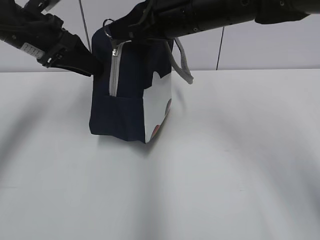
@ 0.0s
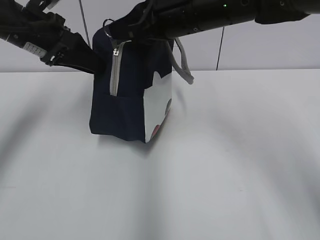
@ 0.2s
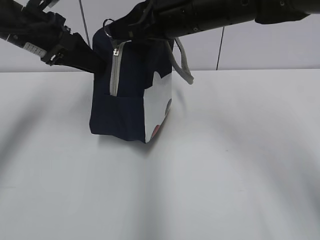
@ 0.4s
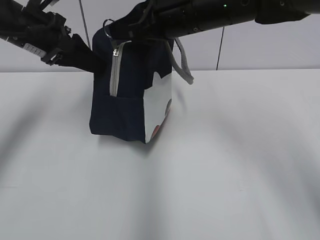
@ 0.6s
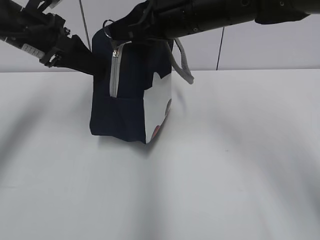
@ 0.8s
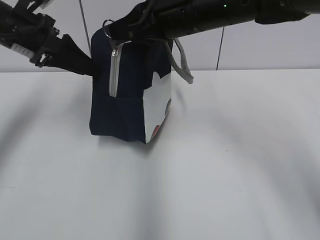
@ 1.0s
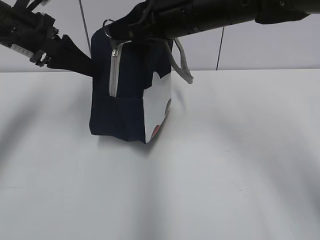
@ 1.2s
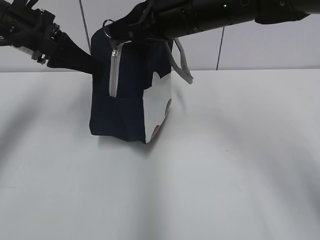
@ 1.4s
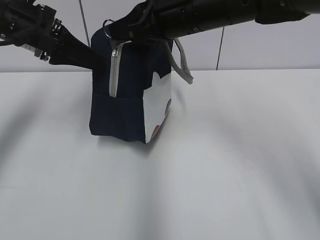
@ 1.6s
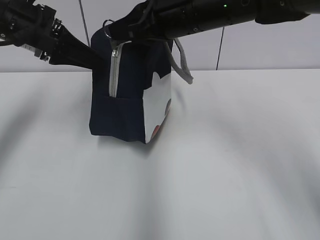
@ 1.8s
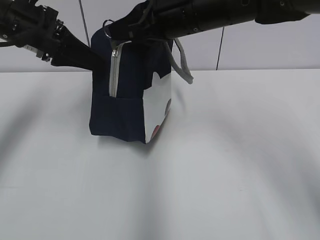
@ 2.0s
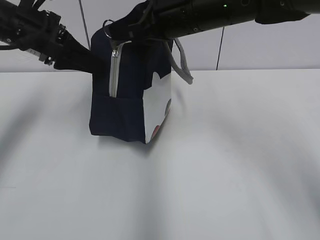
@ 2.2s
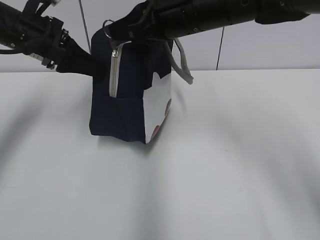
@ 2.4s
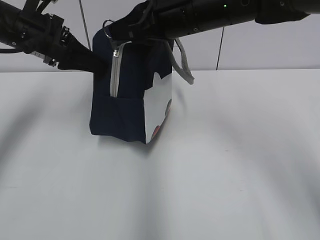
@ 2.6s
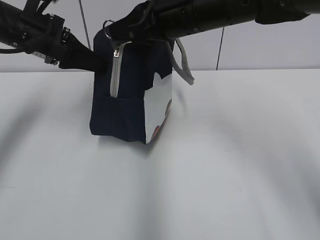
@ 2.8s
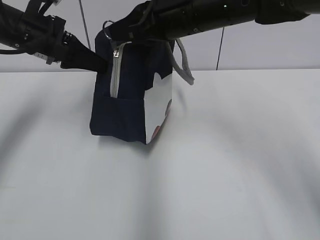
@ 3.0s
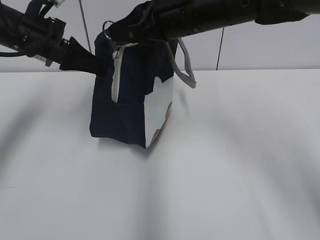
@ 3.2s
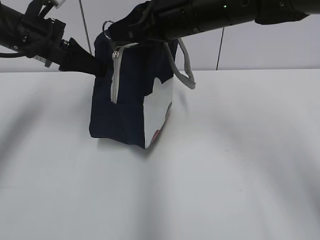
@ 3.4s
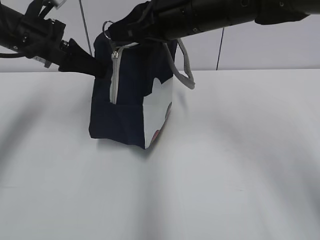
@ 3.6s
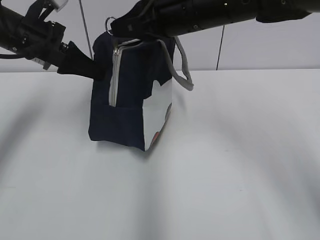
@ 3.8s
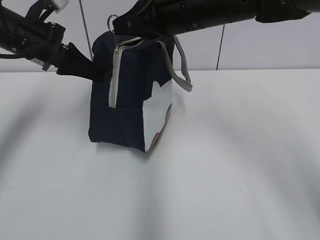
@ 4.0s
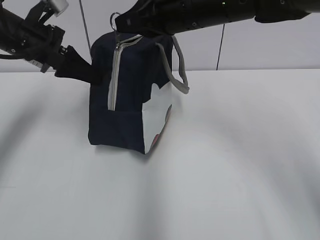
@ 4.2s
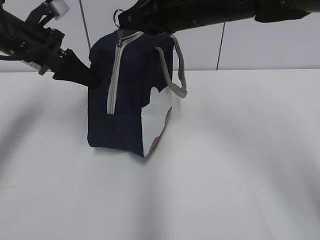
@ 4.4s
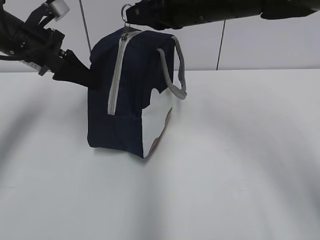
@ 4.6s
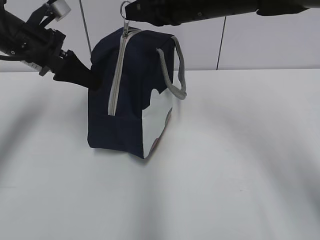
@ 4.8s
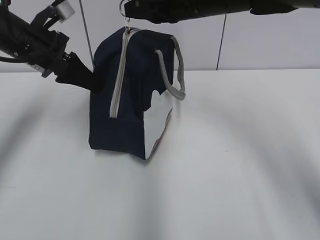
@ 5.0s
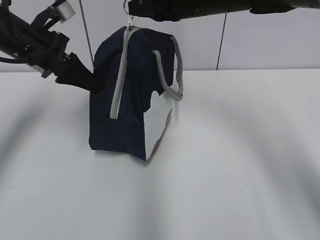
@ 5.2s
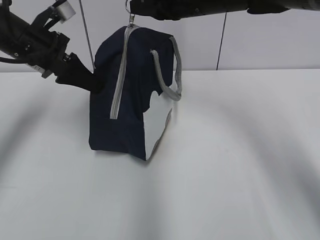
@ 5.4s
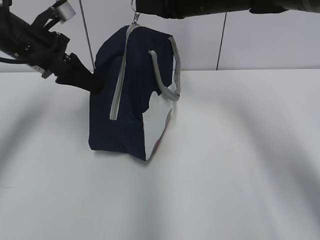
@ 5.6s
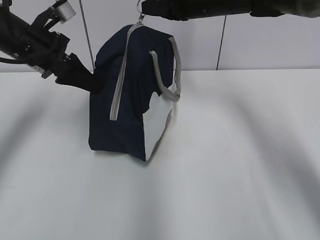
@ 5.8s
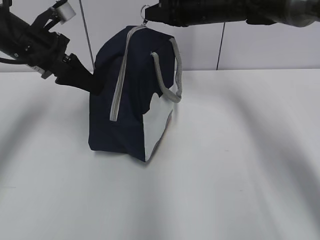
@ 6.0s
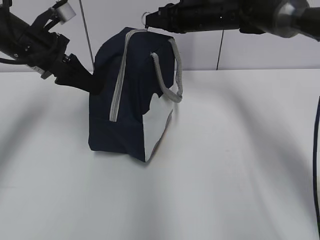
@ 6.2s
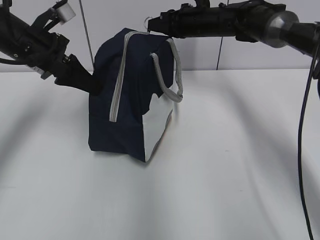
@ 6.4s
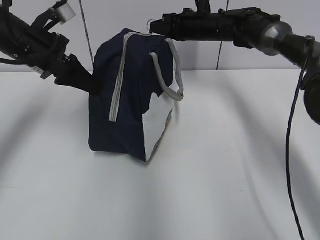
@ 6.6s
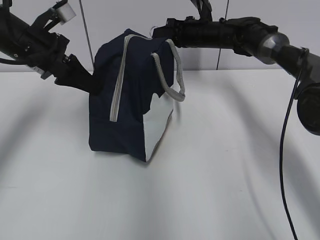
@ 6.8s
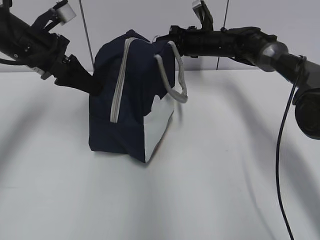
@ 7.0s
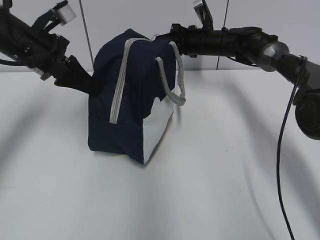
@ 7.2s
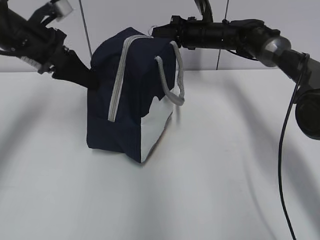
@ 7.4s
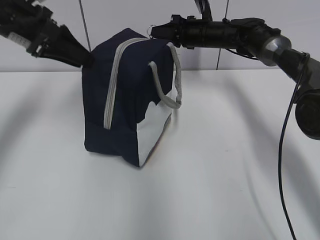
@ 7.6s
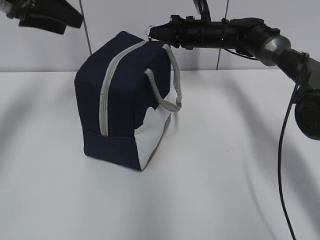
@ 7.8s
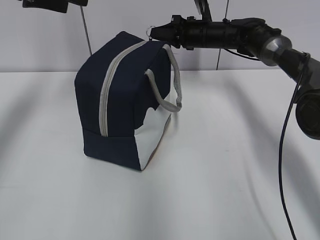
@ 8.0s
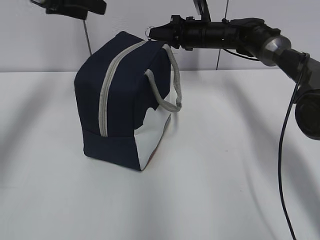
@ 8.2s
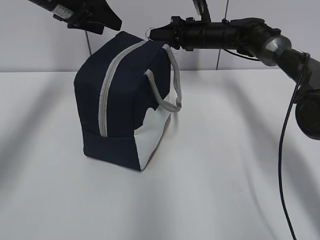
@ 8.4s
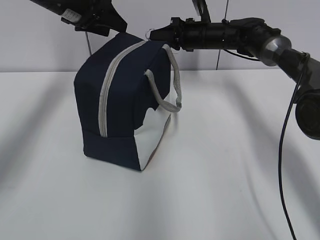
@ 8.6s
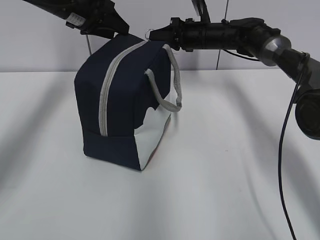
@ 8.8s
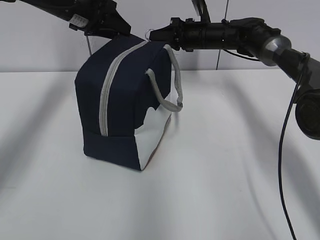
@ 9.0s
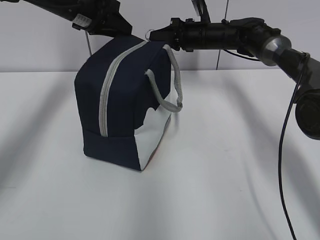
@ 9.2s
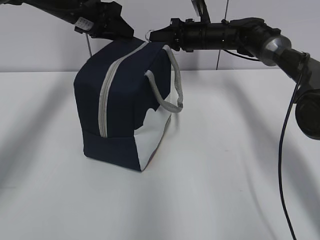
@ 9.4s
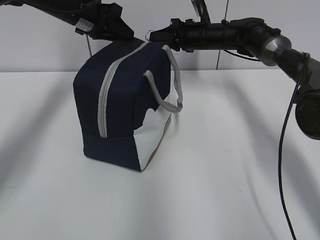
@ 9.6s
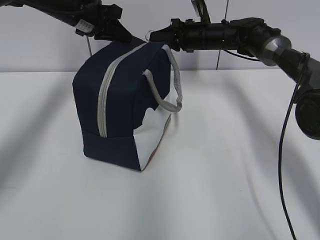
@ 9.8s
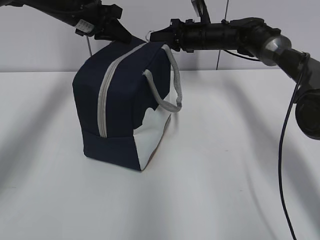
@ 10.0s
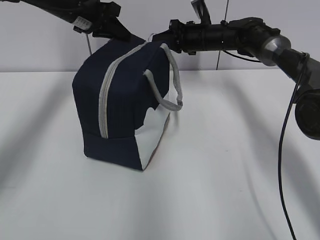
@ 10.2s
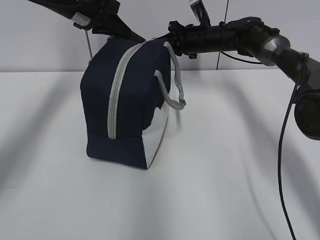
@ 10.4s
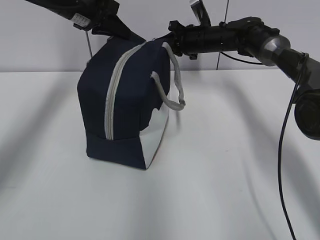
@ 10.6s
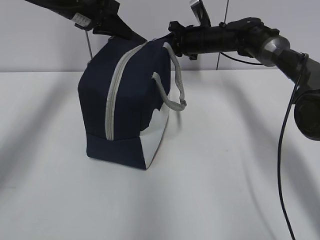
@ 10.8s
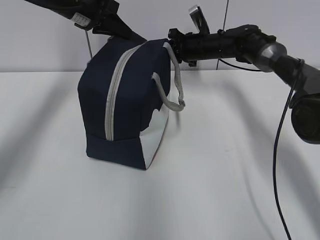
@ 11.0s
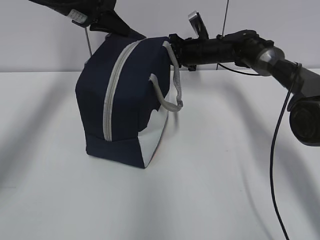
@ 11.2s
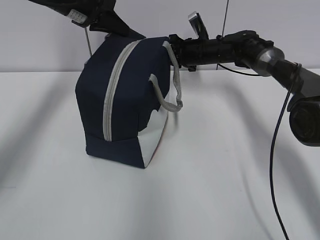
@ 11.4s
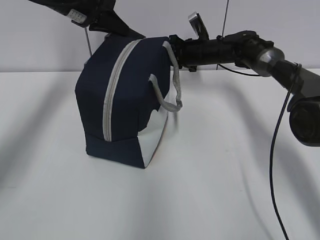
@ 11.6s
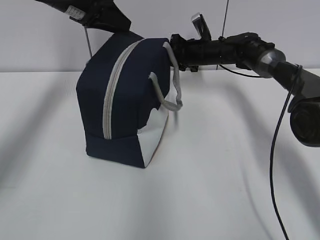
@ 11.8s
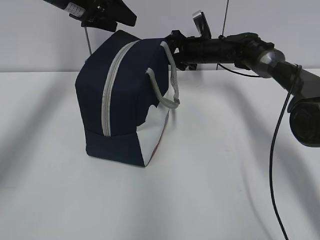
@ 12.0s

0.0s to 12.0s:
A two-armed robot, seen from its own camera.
Step, 0.0s to 7.4s: Grab the lunch bag with your left hand.
Step, 7.6s to 11.6s: Pull the zipper with your right hand.
0.0s to 1.6s: The left gripper opens.
1.6s to 3.0s: The left gripper closes up.
3.0s to 4.4s: The grippers make only small movements.
4.4s to 6.0s: The right gripper moves forward and to the right, roughly 15 cm.
6.0s to 7.6s: The right gripper shifts some 10 cm downward and forward, while the left gripper opens its fingers.
7.6s to 9.0s: The left gripper is displaced forward by about 10 cm.
9.0s to 10.4s: The left gripper closes.
10.4s to 12.0s: The right gripper opens its fingers. The left gripper opens its fingers.

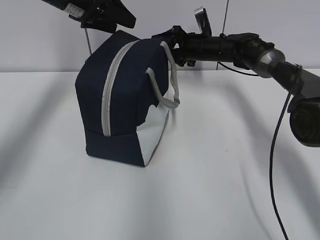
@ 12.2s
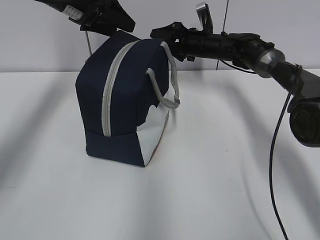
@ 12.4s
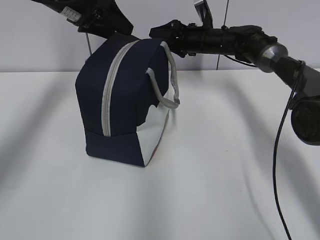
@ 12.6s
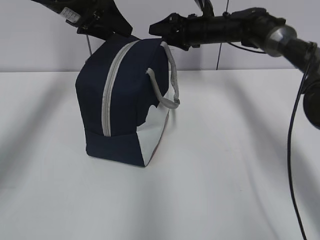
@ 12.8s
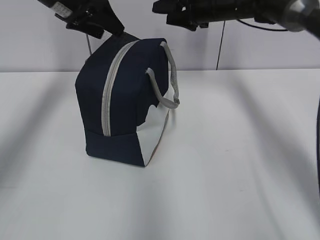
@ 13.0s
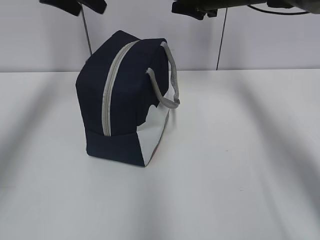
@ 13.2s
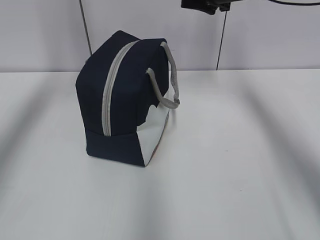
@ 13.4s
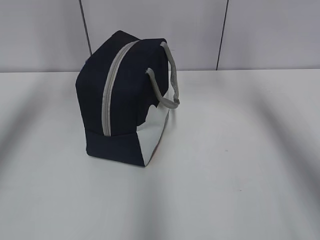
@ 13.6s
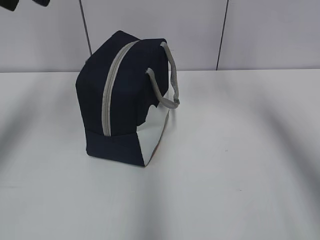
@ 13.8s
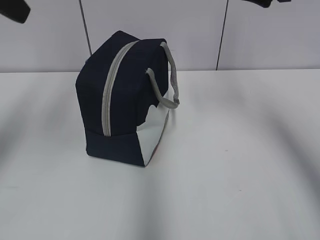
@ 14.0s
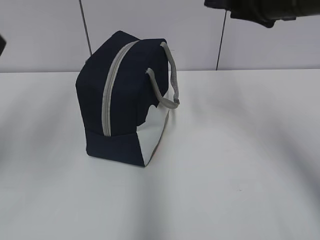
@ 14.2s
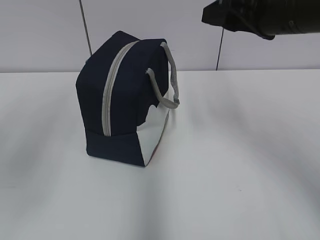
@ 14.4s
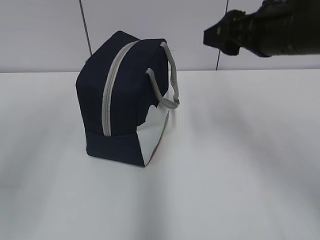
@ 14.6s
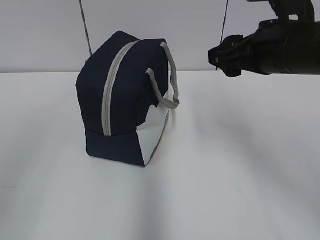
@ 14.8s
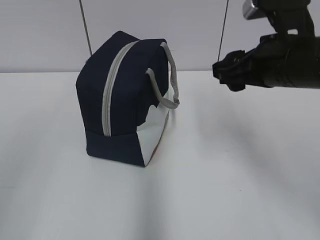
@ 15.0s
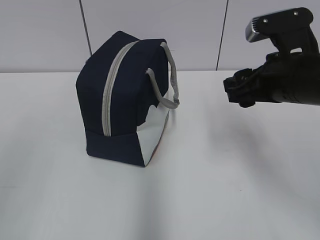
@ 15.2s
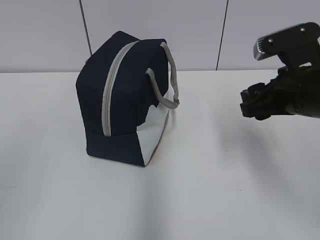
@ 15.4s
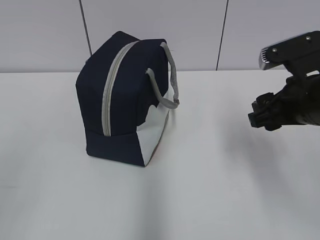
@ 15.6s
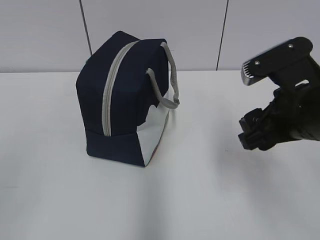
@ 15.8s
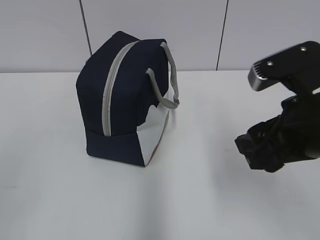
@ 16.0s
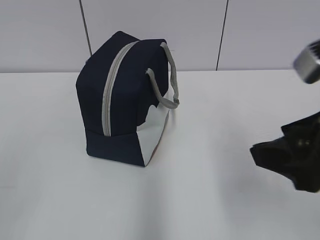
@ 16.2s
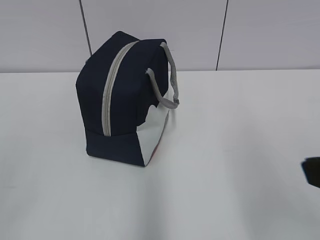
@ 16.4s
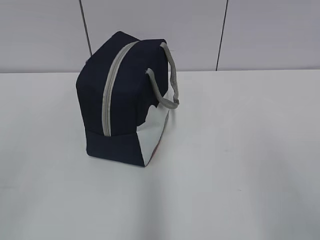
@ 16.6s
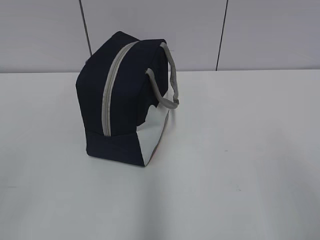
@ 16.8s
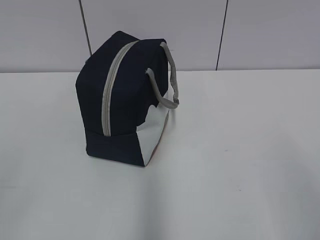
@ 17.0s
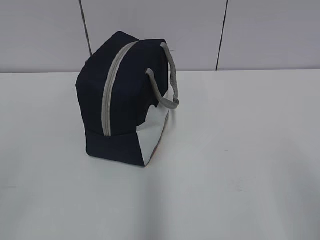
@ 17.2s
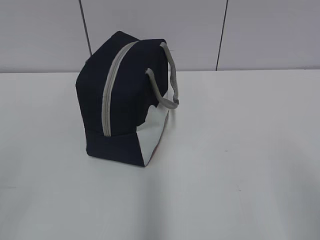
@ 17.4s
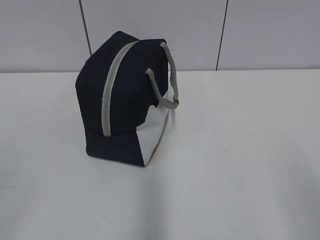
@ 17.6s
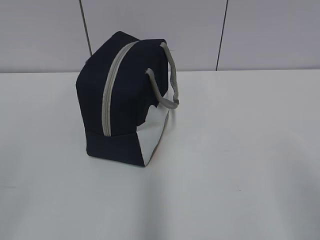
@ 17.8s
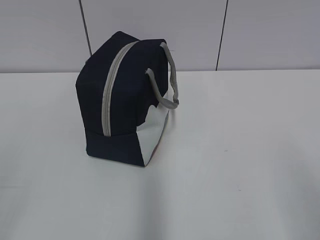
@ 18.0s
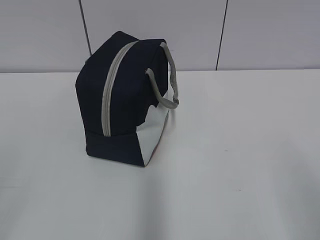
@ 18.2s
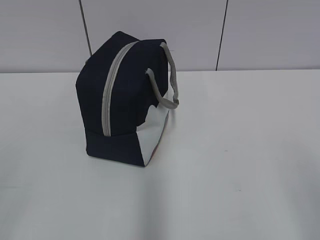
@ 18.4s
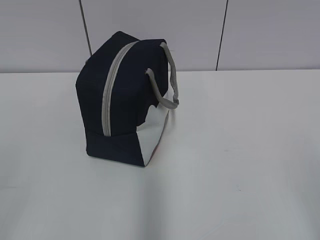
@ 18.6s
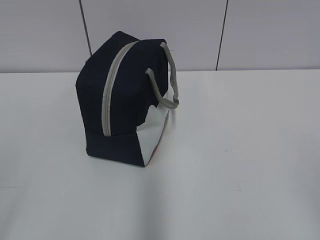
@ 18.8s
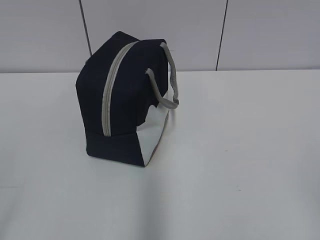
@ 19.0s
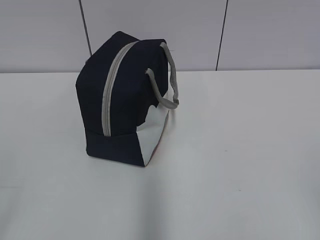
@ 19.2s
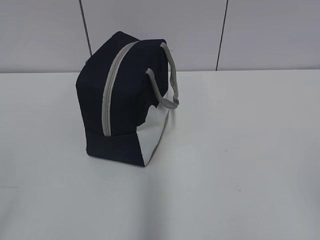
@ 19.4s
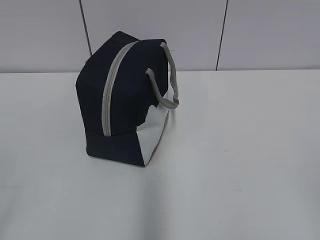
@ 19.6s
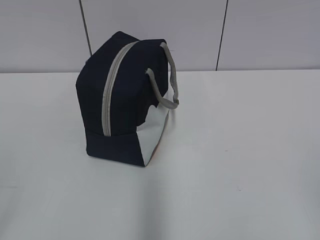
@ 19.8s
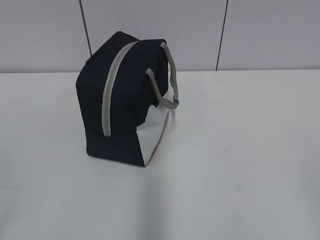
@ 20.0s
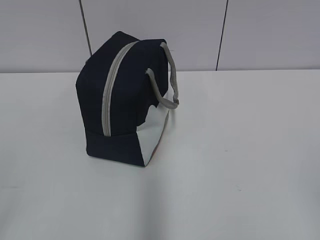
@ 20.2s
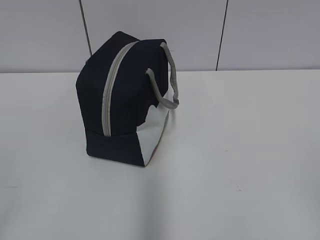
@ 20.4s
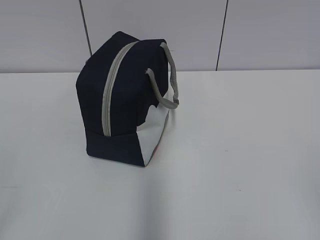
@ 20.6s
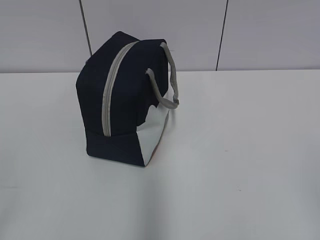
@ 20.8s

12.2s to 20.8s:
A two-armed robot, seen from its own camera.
Step, 12.2s to 12.8s: Grab the lunch bag with your left hand.
12.2s to 13.6s: The right gripper heads upward and backward, covering some 25 cm, while the left gripper is displaced upward, backward and to the left by approximately 15 cm.
13.6s to 15.0s: The right gripper goes roughly 15 cm backward and downward; the left gripper goes roughly 30 cm backward.
15.0s to 16.6s: The right gripper goes about 25 cm backward.
19.4s to 20.8s: Both grippers stay about where they are.
